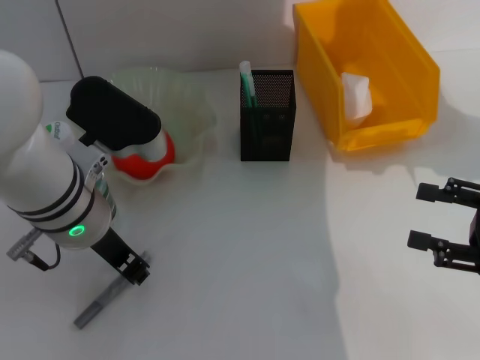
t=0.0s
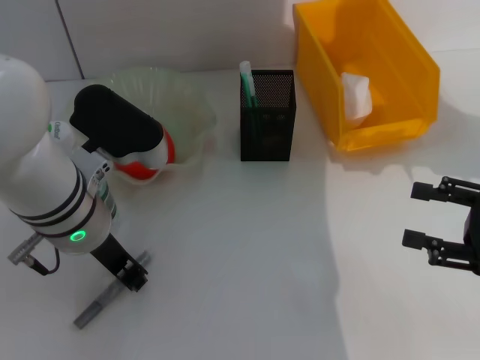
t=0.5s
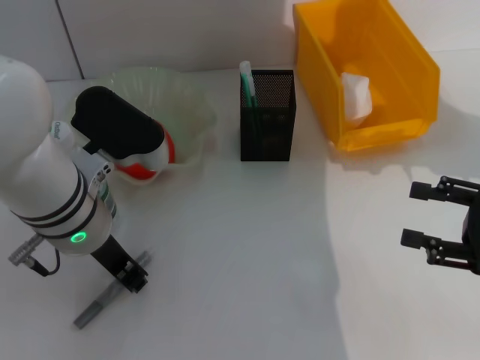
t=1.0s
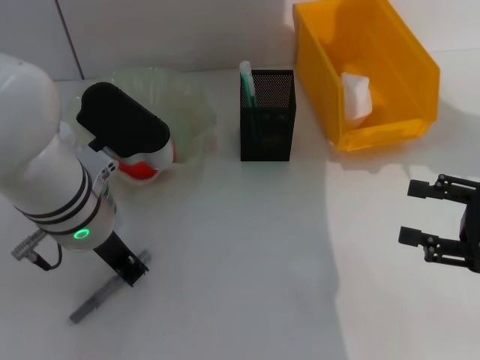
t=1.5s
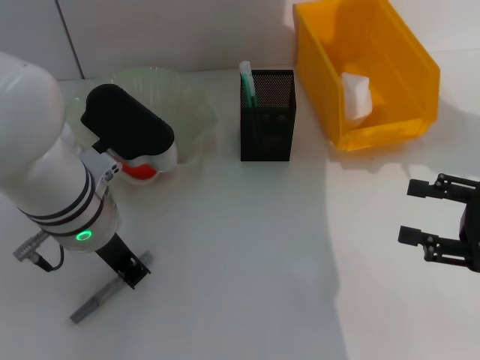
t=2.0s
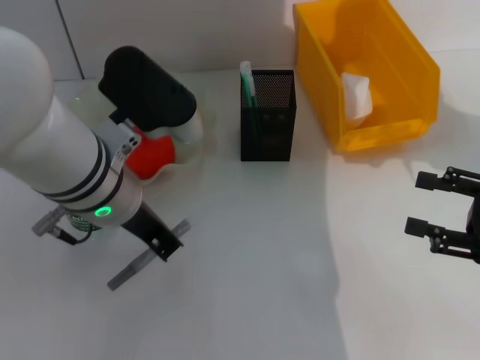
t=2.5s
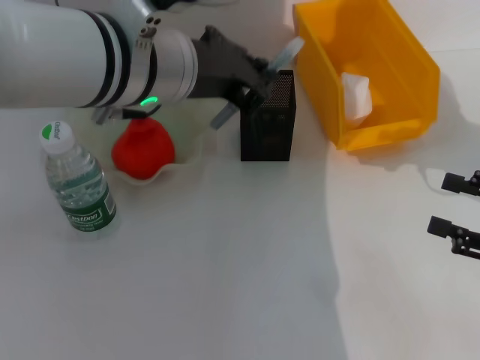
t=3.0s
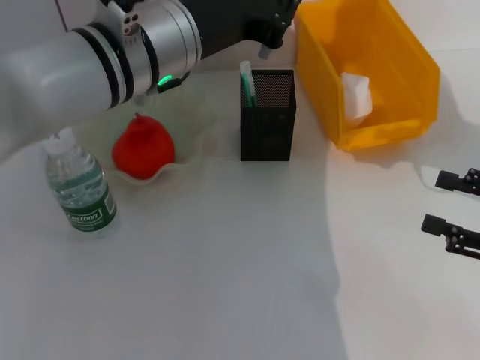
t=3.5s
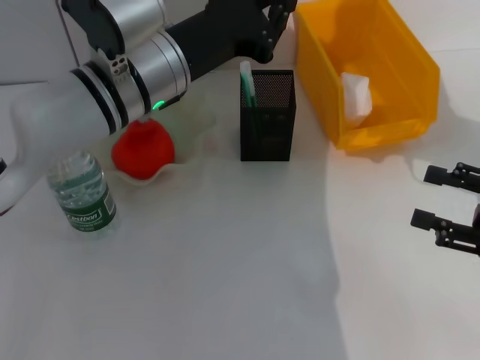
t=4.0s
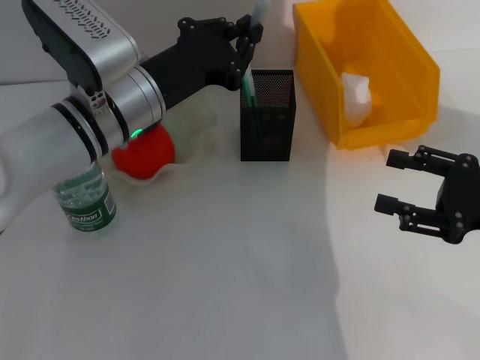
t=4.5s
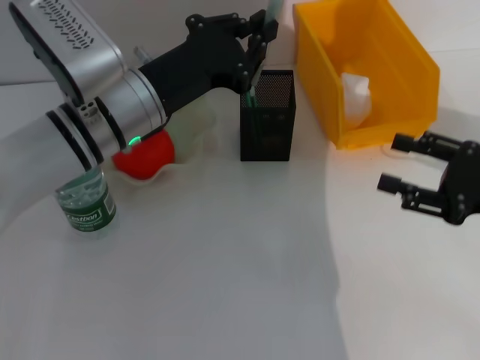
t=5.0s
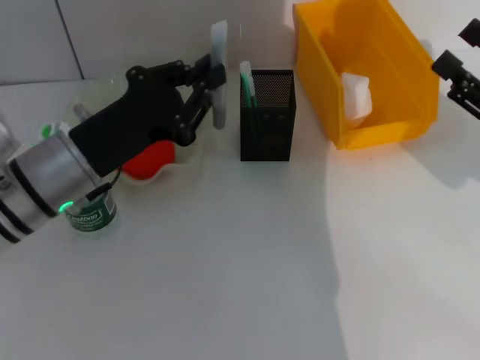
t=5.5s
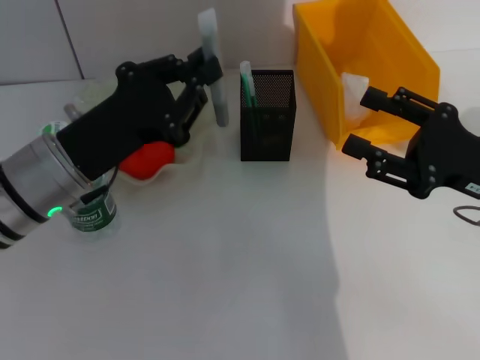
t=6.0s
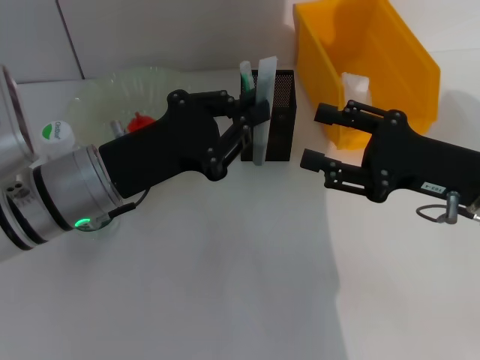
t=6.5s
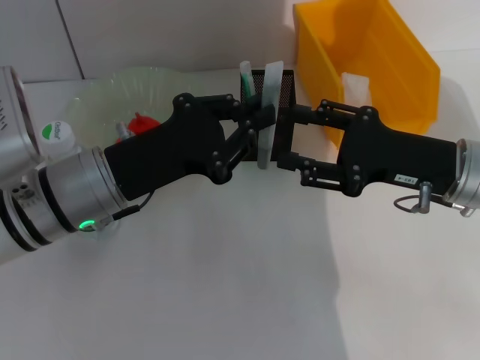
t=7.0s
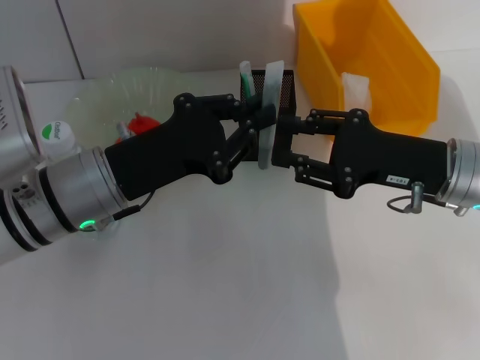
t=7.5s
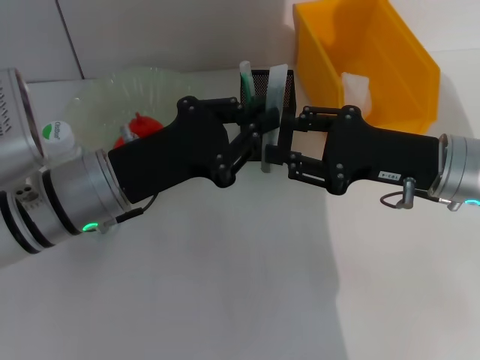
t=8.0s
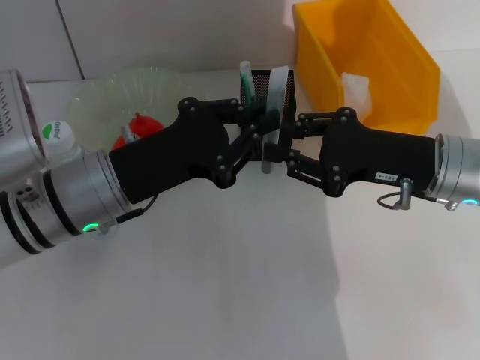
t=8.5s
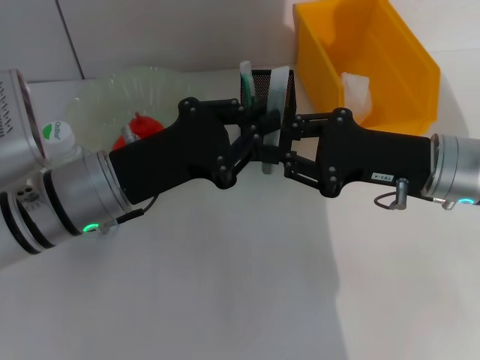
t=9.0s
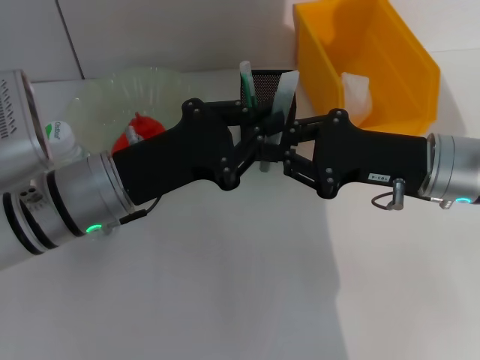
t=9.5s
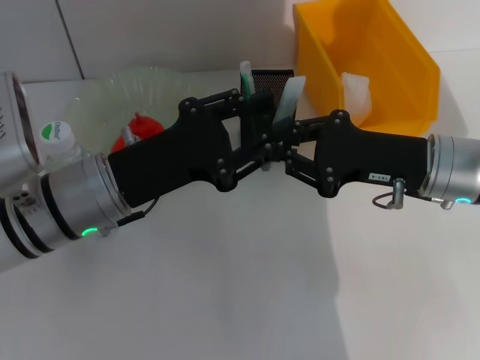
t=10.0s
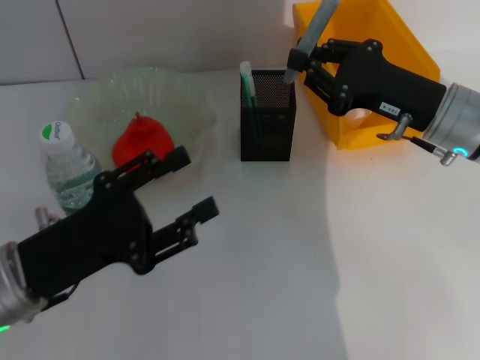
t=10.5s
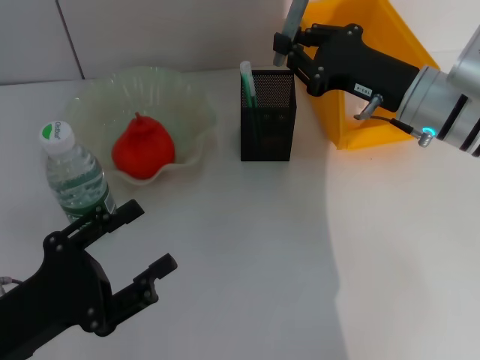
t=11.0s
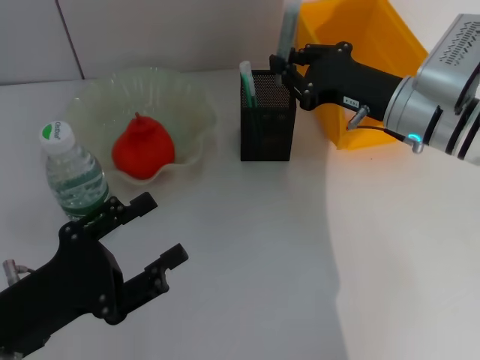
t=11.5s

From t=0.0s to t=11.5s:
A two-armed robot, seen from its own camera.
Step, from t=2.0s to t=10.0s: Pass the gray glue from the left hand to the right hand.
From t=0.0s to t=2.0s: Both grippers stay about where they are.
From t=2.0s to t=4.0s: The left gripper moves forward, some 5 cm, and goes upward and returns, approximately 10 cm each way.
From t=4.0s to t=6.0s: The left gripper moves to the left and backward, roughly 10 cm; the right gripper shifts about 5 cm to the left.
From t=6.0s to t=7.5s: The right gripper ends up about 5 cm from where it was.
From t=7.5s to t=9.5s: The right gripper closes its fingers.
From t=9.5s to t=11.5s: The left gripper heads backward, to the left and downward, covering approximately 15 cm, and opens its fingers. Meanwhile the right gripper moves forward, approximately 5 cm.

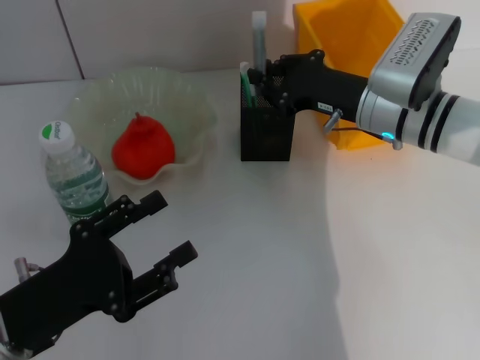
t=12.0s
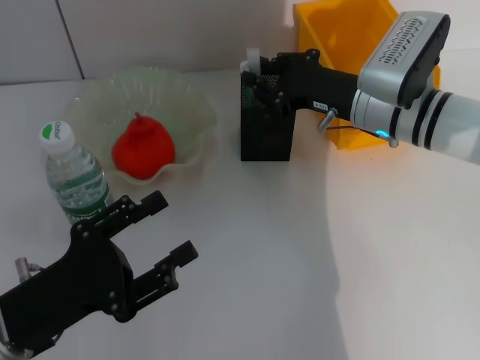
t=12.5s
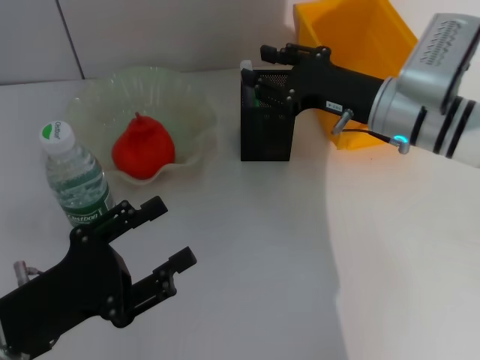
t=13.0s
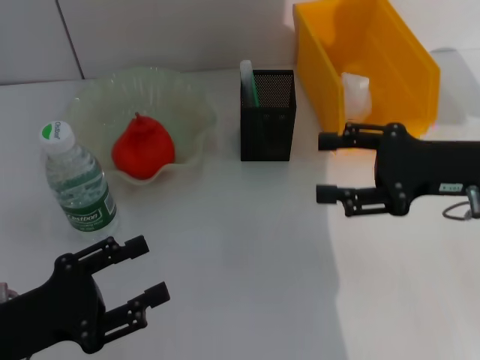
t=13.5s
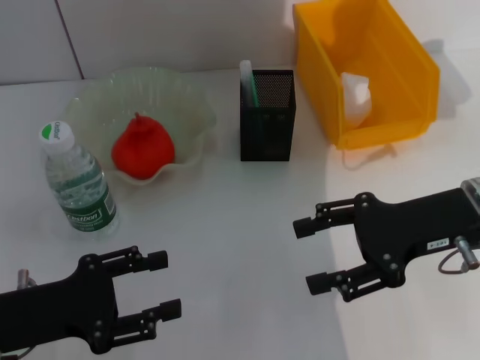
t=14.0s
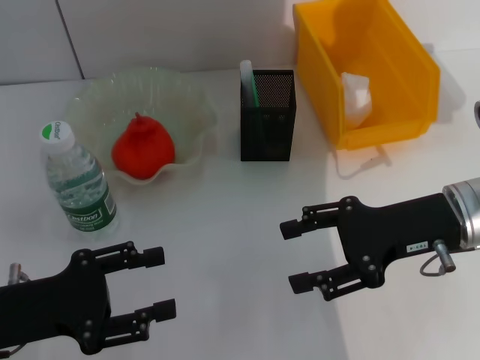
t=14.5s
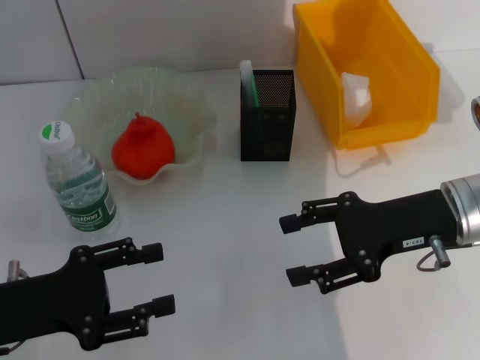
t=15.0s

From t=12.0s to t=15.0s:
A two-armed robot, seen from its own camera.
From t=12.0s to t=13.5s: The right gripper heads to the right and backward, covering about 15 cm, and opens its fingers.
From t=13.5s to t=15.0s: The grippers make only small movements.

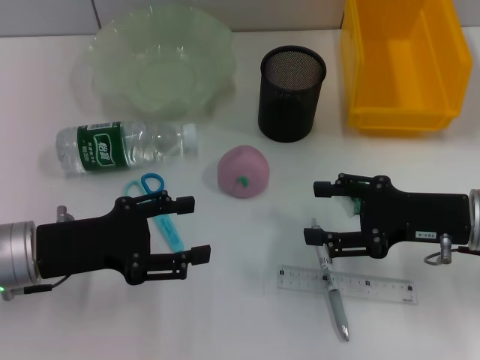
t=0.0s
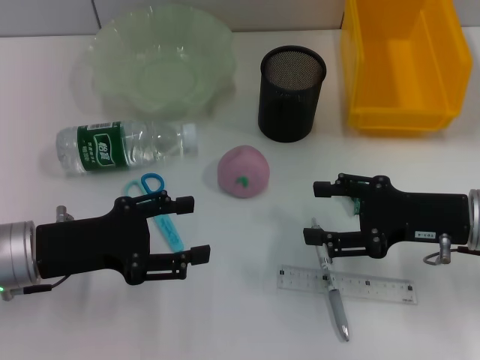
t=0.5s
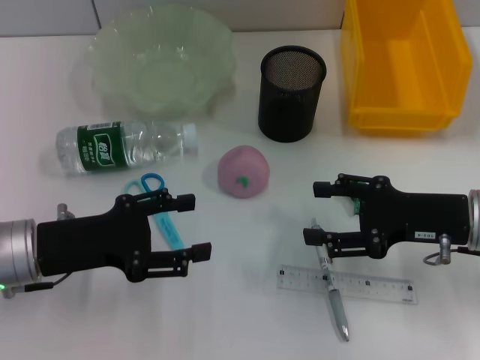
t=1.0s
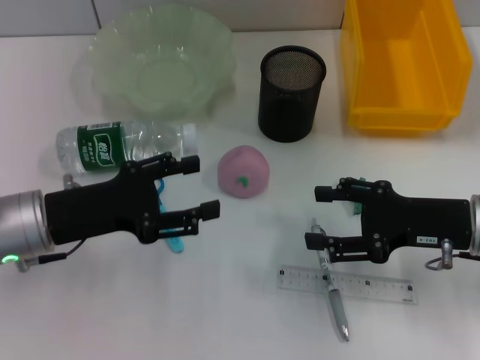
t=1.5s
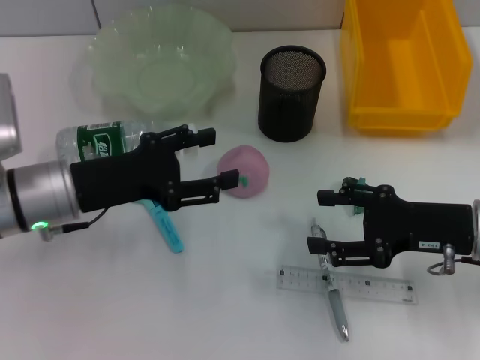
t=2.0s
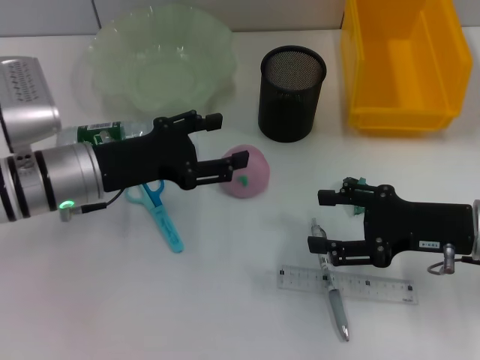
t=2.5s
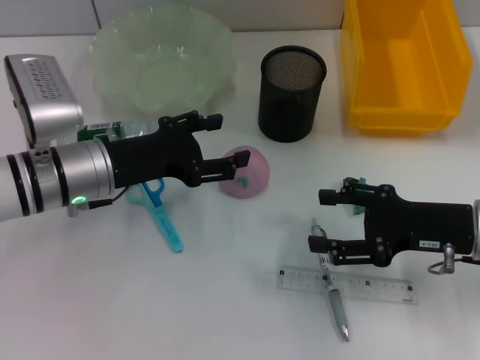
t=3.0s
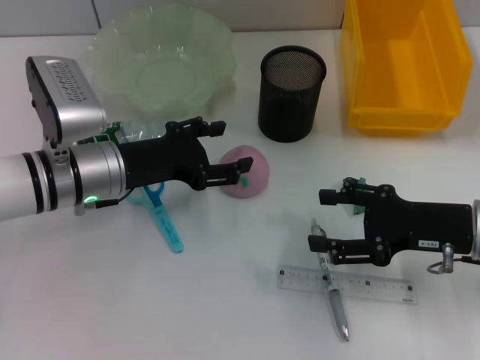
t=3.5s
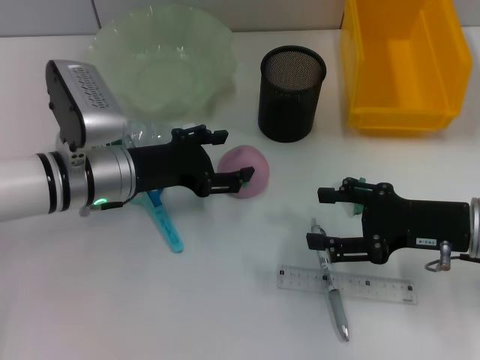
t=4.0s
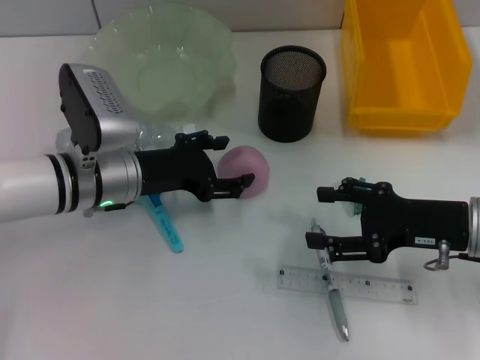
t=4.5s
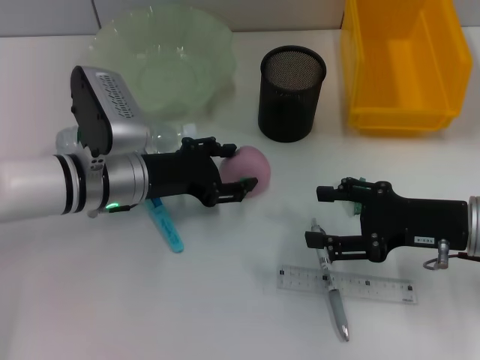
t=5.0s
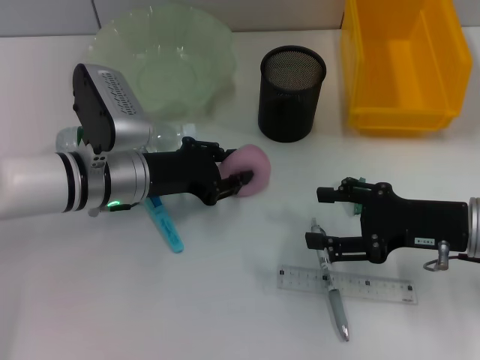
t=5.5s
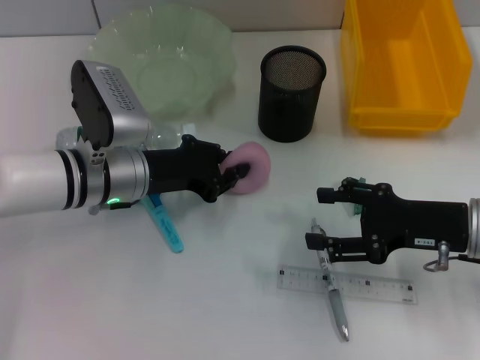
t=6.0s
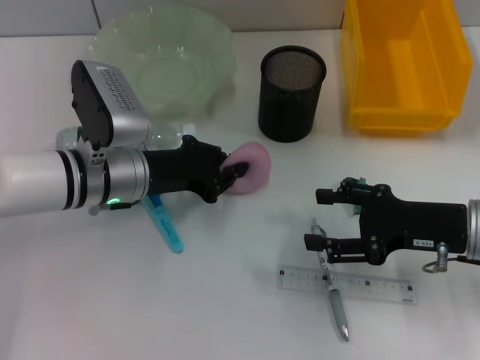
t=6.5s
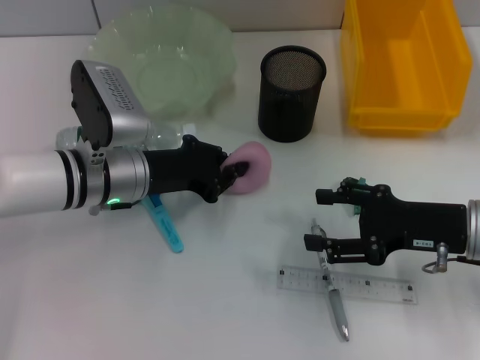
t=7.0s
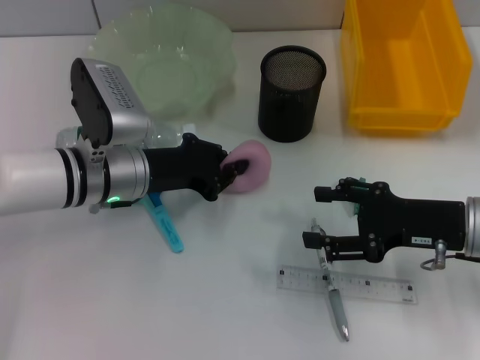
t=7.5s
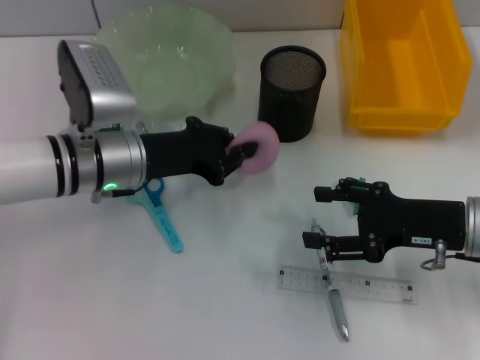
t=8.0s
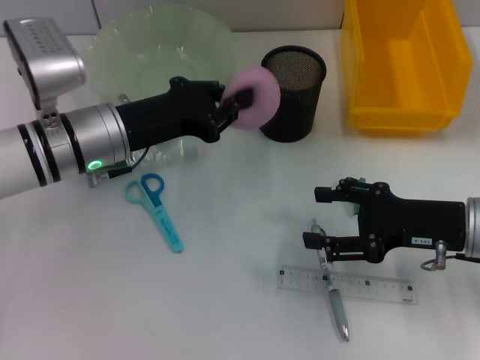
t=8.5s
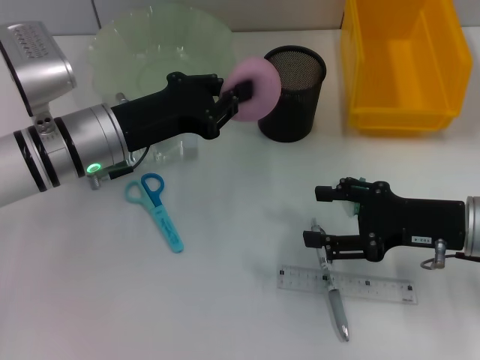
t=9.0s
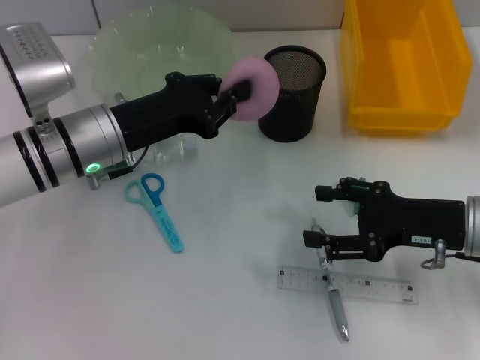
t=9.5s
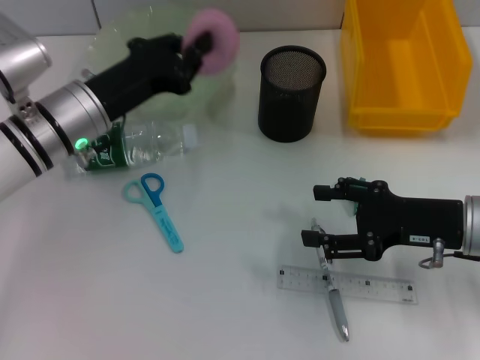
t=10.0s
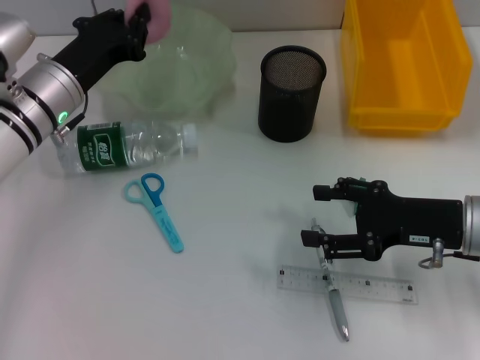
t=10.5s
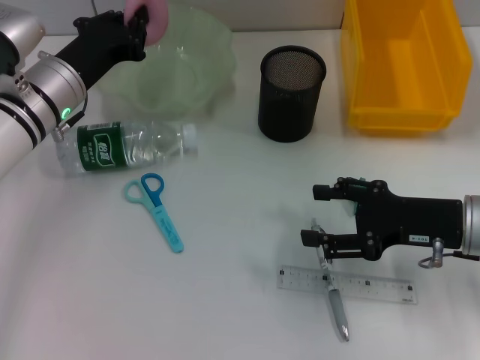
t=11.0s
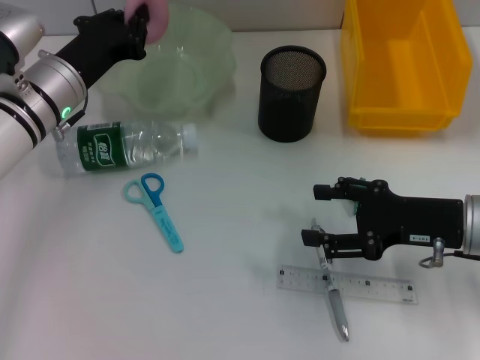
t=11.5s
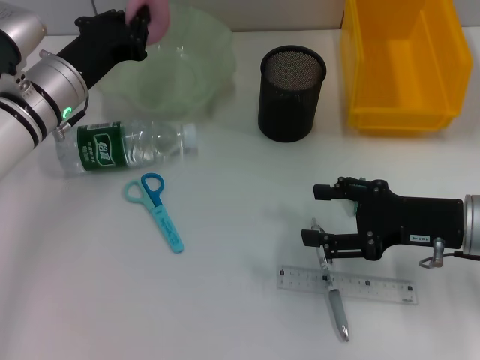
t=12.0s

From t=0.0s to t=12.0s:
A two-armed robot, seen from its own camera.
Step, from t=0.0s to t=6.0s: Grab the peach with the left hand.
From t=0.0s to t=2.0s: The left gripper moves approximately 5 cm.
From t=2.0s to t=4.0s: The left gripper ends up about 5 cm from where it was.
From t=4.0s to t=6.0s: The left gripper closes its fingers.
From t=6.0s to t=8.0s: The grippers stay close to where they were, moving slightly.
